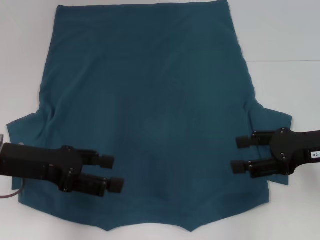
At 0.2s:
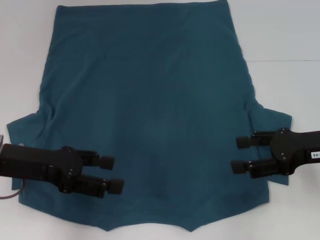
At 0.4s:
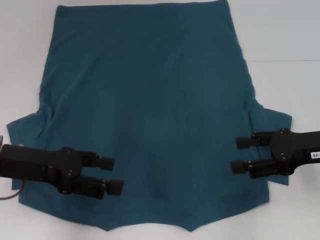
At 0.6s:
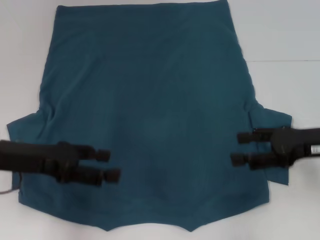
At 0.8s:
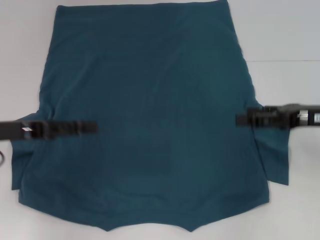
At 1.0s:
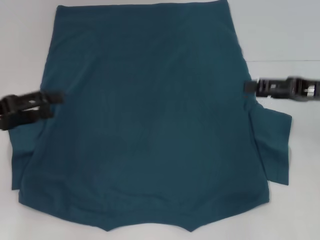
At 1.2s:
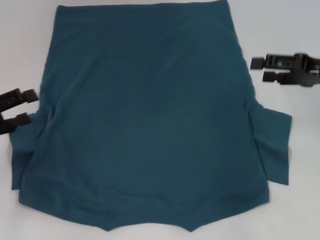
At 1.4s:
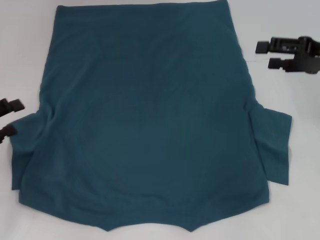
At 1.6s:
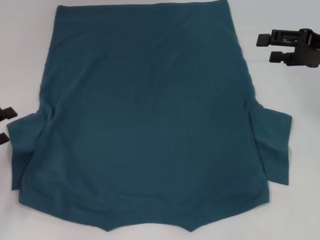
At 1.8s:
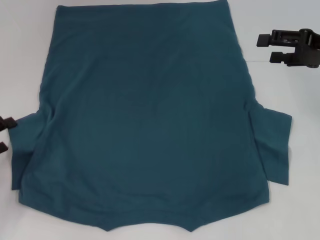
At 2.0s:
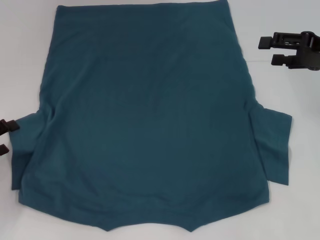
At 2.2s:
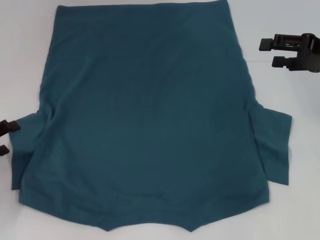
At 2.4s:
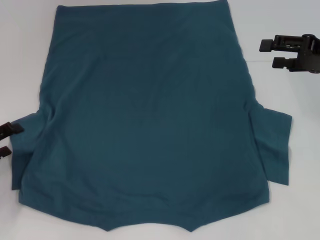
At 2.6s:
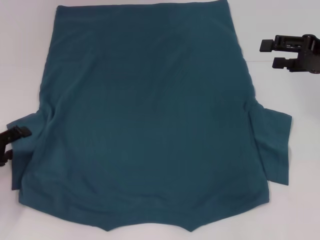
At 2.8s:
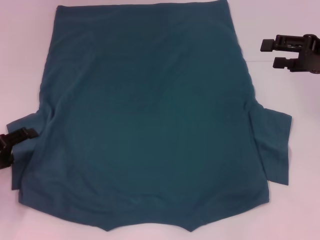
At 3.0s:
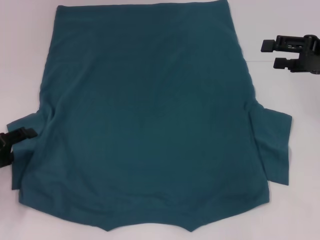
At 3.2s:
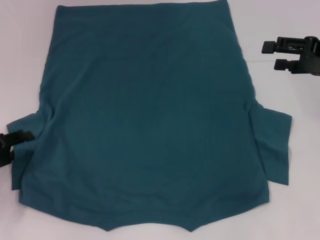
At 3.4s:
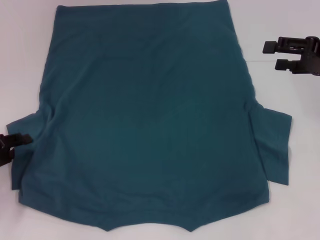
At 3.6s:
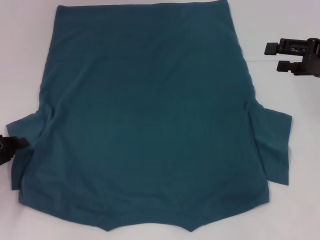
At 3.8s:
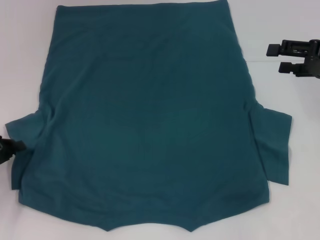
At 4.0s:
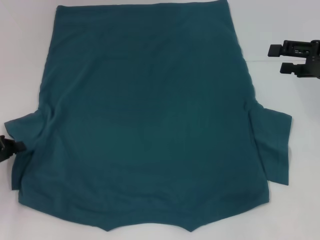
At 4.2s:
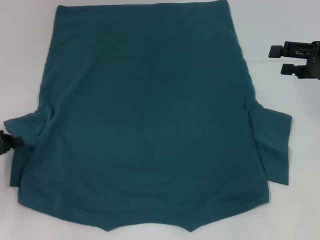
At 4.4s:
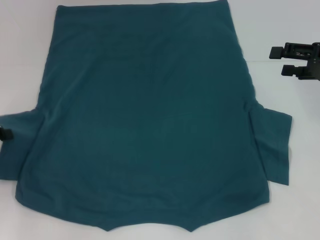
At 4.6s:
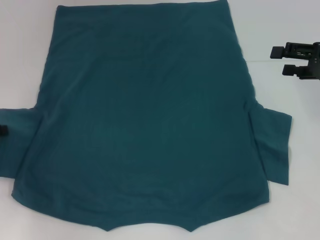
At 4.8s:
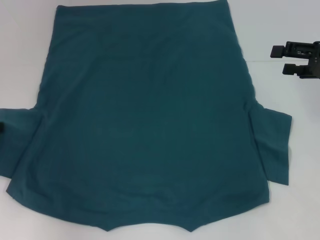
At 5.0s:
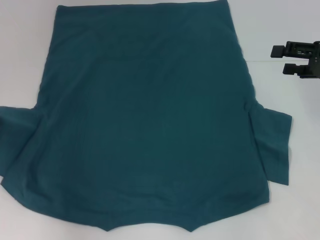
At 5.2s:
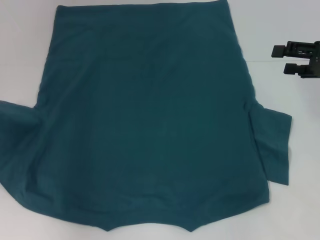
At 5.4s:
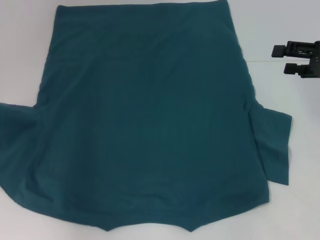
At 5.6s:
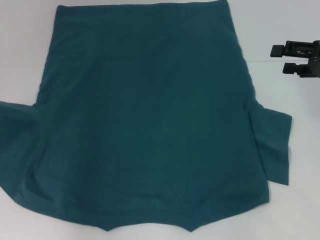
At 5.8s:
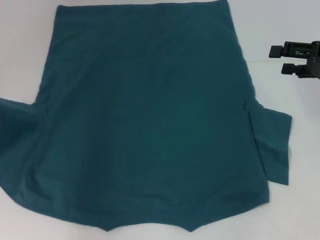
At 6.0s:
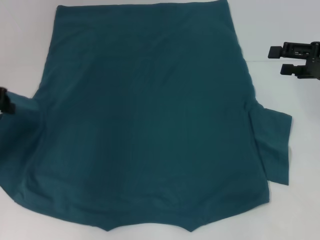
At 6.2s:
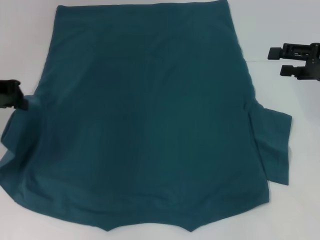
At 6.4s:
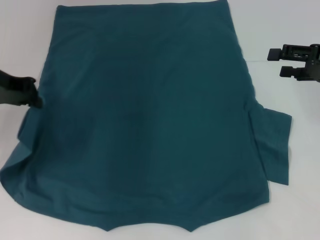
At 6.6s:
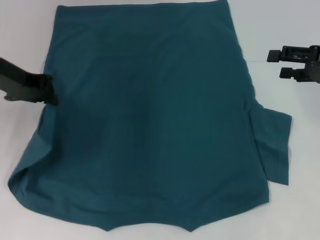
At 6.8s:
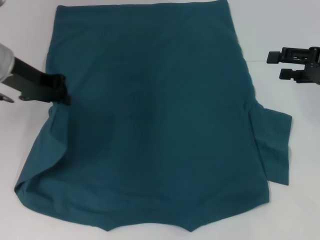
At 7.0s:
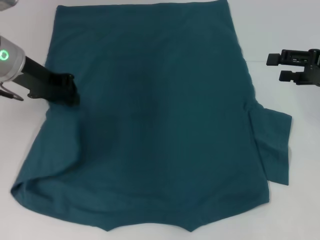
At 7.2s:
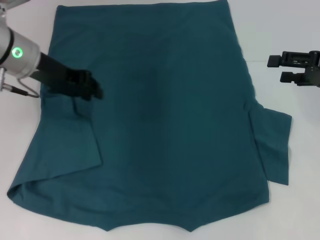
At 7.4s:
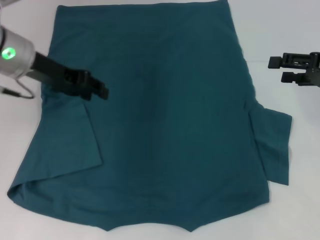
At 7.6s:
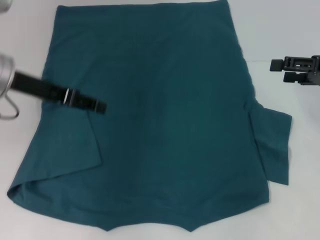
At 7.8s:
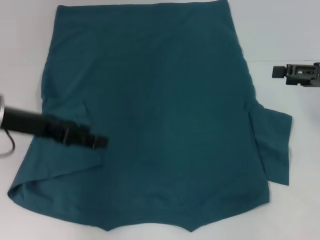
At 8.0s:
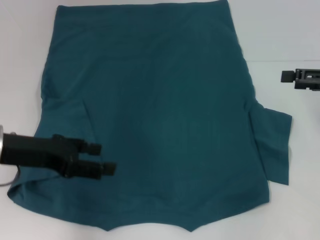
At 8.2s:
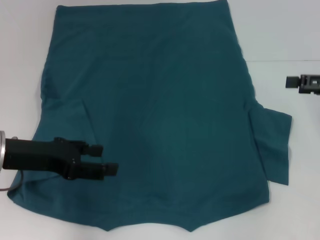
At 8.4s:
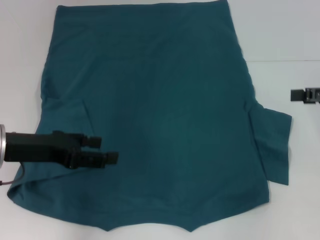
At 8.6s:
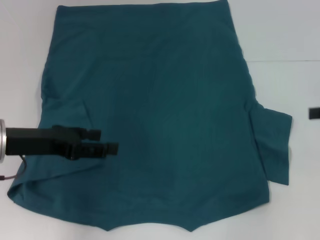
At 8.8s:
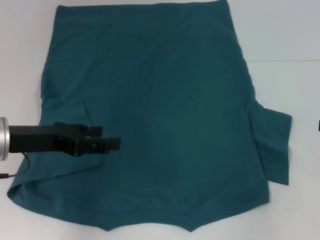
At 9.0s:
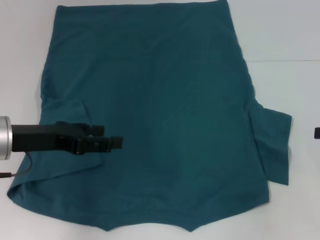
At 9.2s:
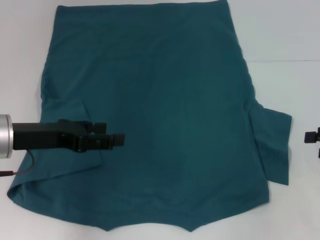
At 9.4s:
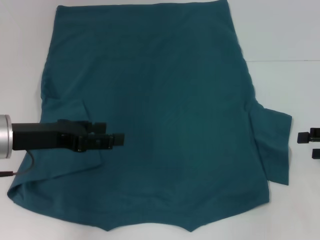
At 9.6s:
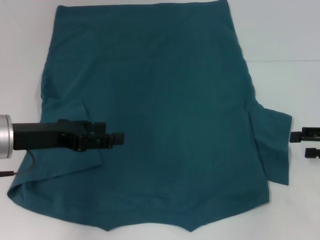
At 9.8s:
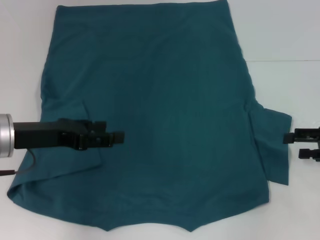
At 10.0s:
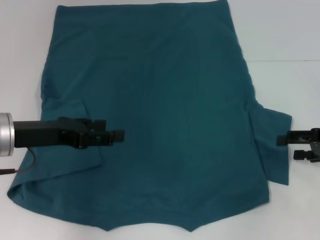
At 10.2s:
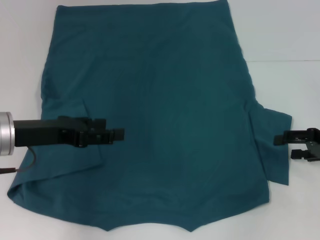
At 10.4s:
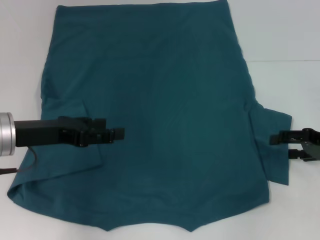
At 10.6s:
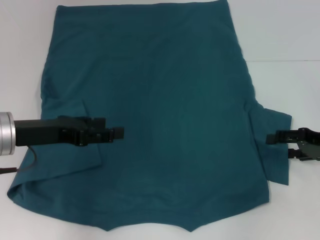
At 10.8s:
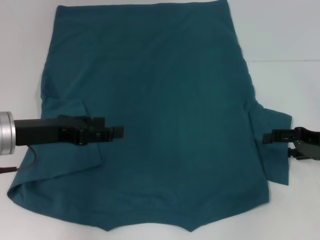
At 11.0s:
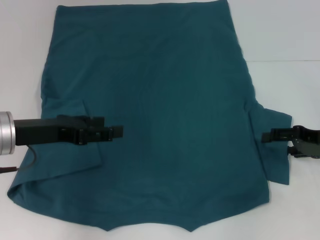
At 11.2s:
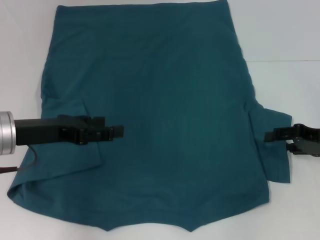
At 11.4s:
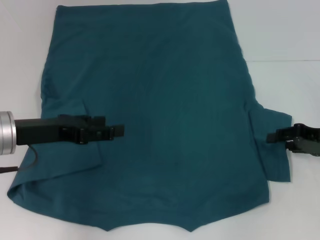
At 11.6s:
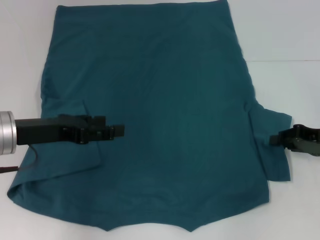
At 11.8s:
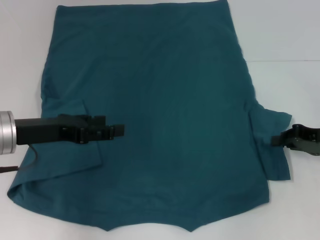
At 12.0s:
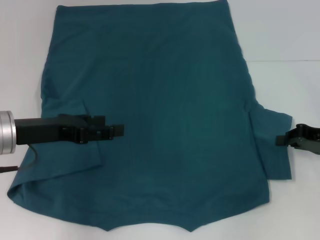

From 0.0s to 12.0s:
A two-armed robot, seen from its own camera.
Step, from 0.0s to 7.6s: Fold the bottom left sleeve with your left hand.
From 0.0s to 1.6s: The left gripper heads to the left and downward, covering roughly 15 cm; the right gripper travels forward and upward by approximately 10 cm.
From 1.6s to 3.0s: The grippers move only a little.
From 3.0s to 4.4s: The left gripper ends up roughly 5 cm from where it was, and closes.
From 4.4s to 6.0s: The left gripper moves upward and forward, some 10 cm.
From 6.0s to 7.6s: The left gripper goes roughly 10 cm to the right, and opens.
From 7.6s to 9.0s: The left gripper travels backward and downward by about 10 cm, and opens. The right gripper goes approximately 10 cm to the right and backward.
From 9.0s to 10.4s: The right gripper moves to the left, approximately 5 cm.
From 10.4s to 12.0s: The right gripper closes.

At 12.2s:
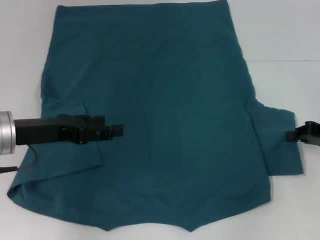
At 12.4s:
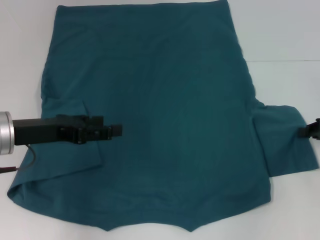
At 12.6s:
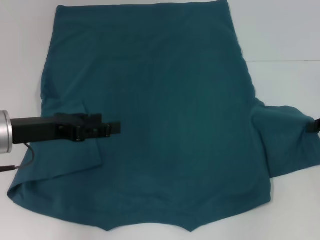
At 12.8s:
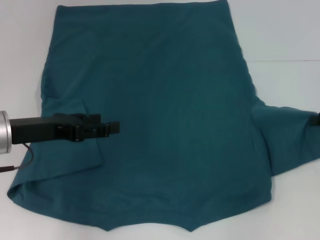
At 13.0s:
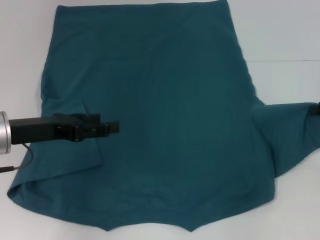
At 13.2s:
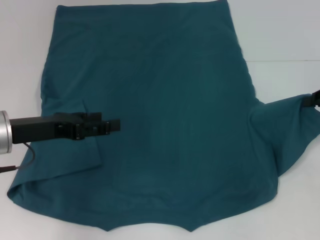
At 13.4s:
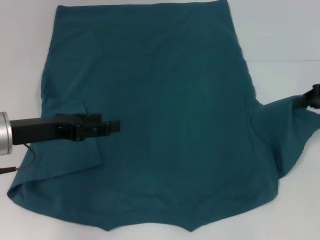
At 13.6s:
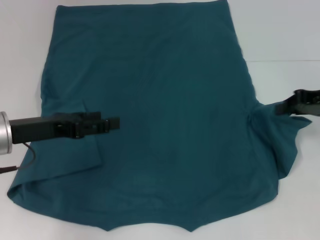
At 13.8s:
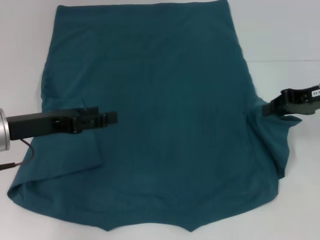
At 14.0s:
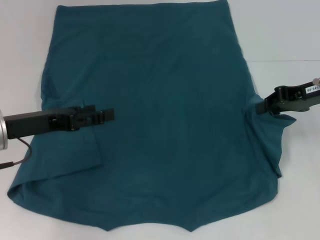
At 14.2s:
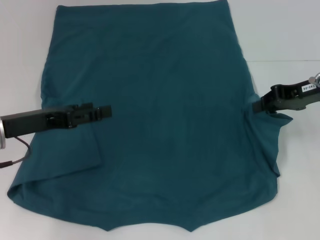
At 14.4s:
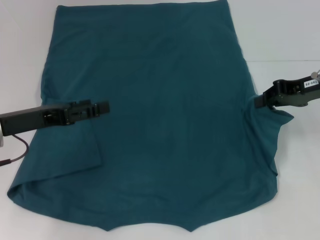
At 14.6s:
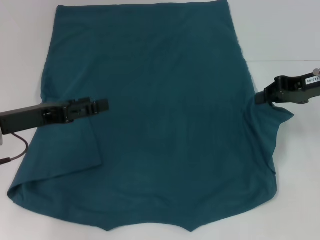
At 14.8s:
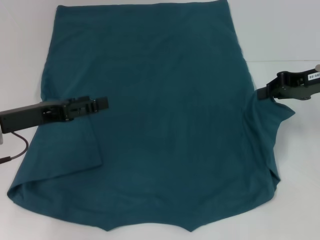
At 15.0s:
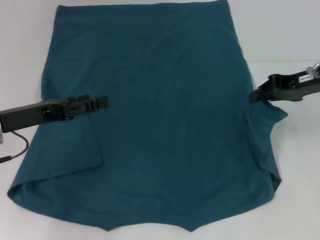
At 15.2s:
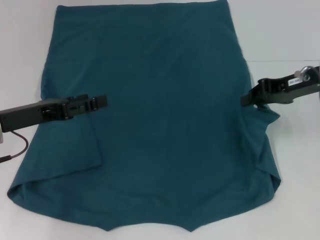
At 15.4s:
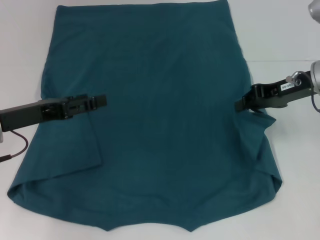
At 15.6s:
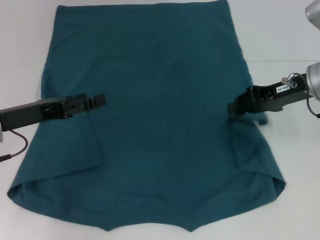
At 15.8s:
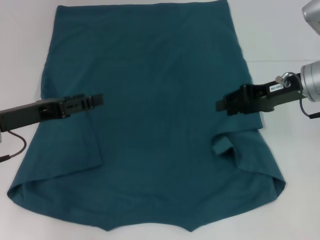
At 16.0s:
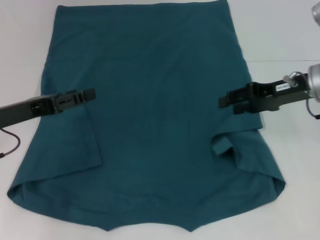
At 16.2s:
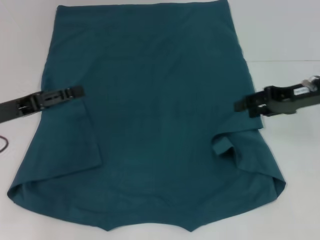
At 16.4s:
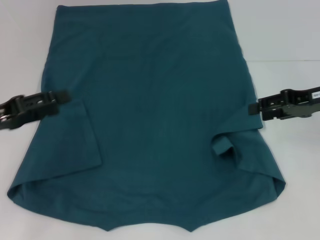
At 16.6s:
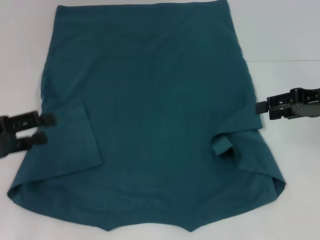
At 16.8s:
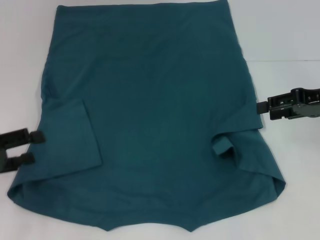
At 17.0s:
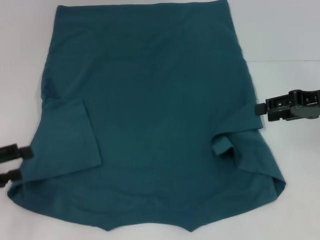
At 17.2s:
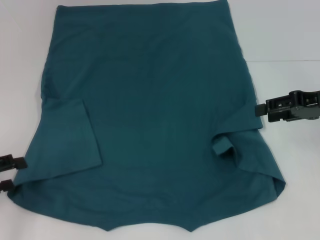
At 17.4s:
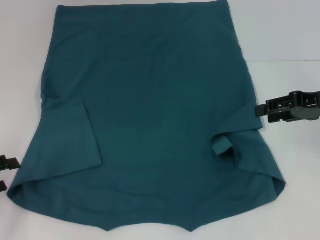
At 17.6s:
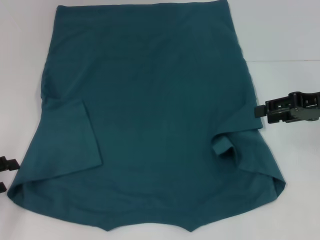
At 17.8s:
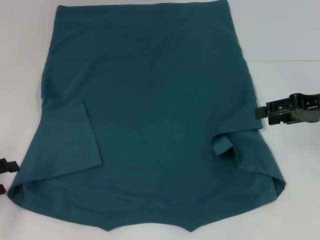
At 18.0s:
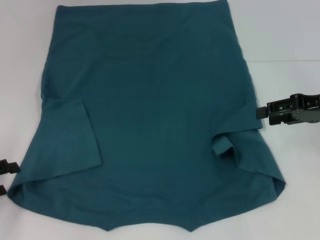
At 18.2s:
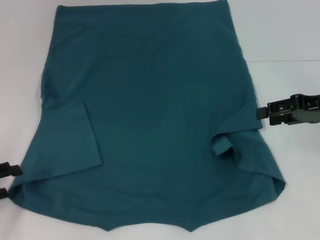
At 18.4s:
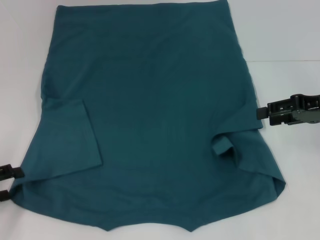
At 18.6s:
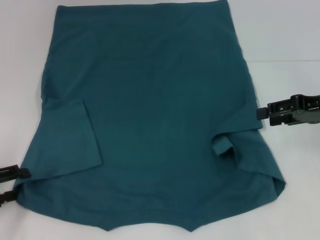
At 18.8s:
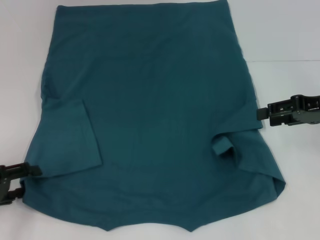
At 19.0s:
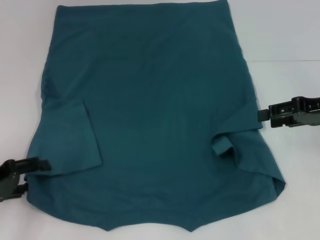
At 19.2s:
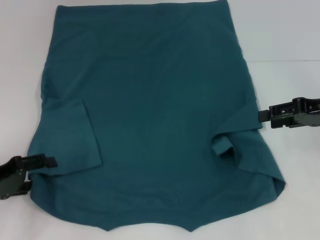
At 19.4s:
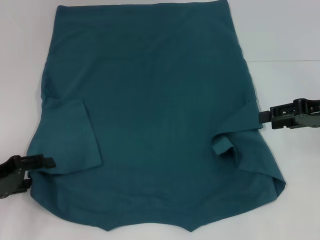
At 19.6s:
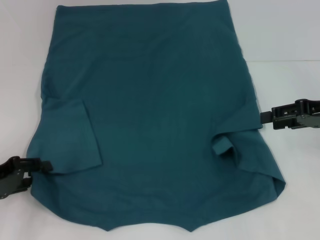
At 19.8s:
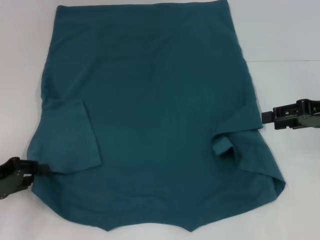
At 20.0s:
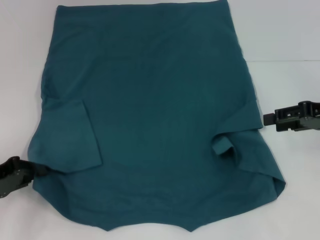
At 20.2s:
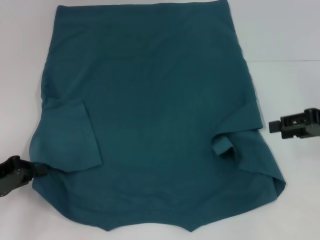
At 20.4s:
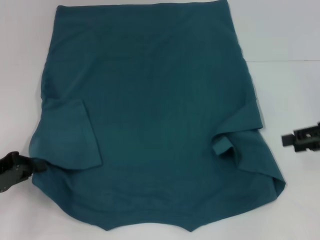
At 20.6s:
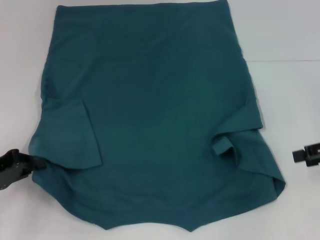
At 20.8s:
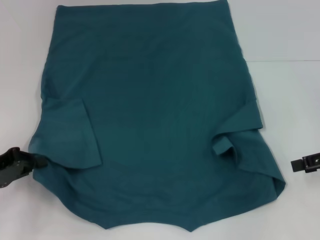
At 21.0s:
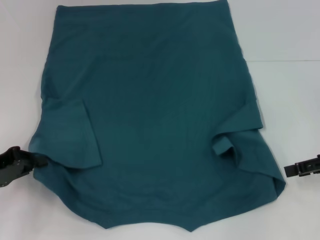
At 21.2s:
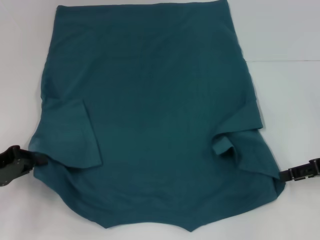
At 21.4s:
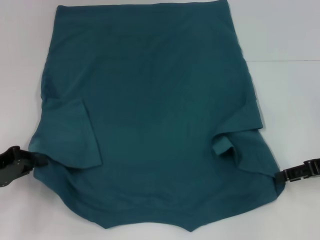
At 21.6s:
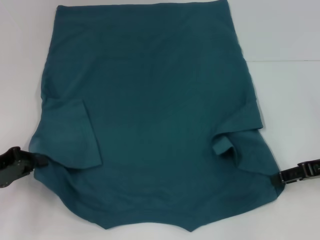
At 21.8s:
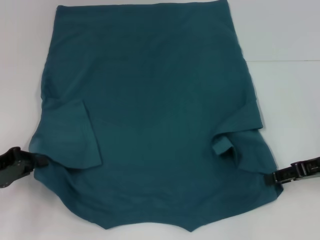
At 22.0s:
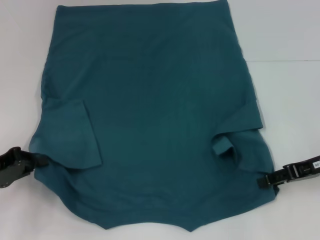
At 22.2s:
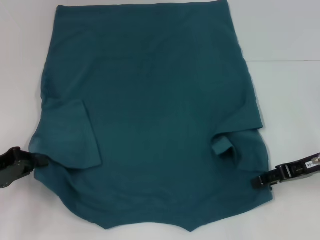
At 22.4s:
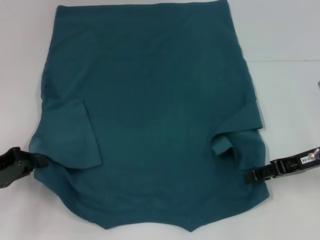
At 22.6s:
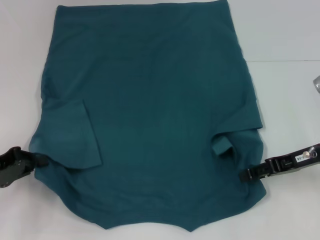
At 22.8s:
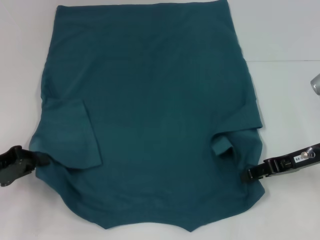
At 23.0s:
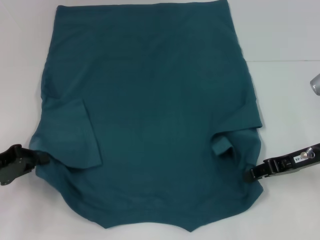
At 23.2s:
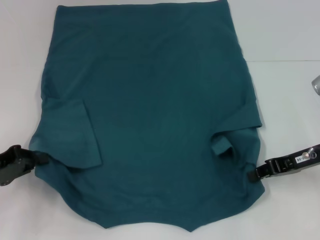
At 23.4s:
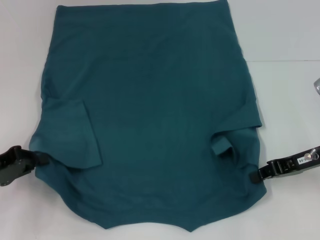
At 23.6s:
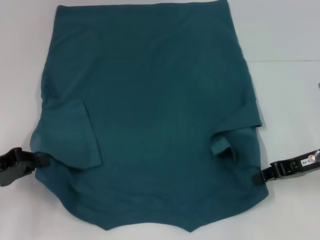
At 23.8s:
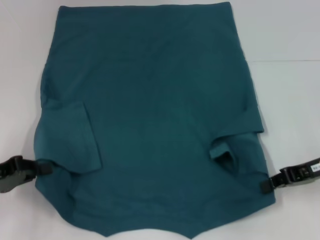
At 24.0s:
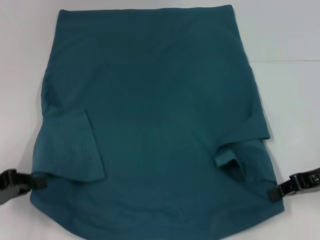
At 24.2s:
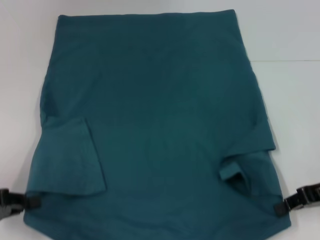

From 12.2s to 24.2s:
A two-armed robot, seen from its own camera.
Step, from 12.2s to 16.2s: Fold the bottom right sleeve to the right.
Step, from 16.4s to 20.0s: Grab the bottom left corner with your left hand.
Step, from 20.2s to 23.6s: Grab the bottom right corner with your right hand.
From 12.2s to 13.8s: The right gripper goes roughly 5 cm upward.
From 13.8s to 15.2s: The grippers move only a little.
From 15.2s to 16.6s: The left gripper shifts approximately 5 cm to the left; the right gripper moves approximately 5 cm, and opens up.
From 16.6s to 18.2s: The left gripper is displaced downward by some 5 cm.
From 18.2s to 19.8s: The grippers stay close to where they were, moving slightly.
From 19.8s to 21.2s: The left gripper closes; the right gripper ends up approximately 5 cm from where it was.
From 21.2s to 22.6s: The right gripper heads to the left, covering roughly 5 cm.
From 22.6s to 24.2s: The left gripper shifts by roughly 5 cm. The right gripper moves roughly 5 cm, and closes its fingers.
